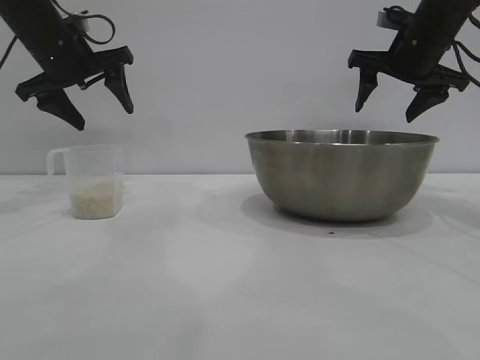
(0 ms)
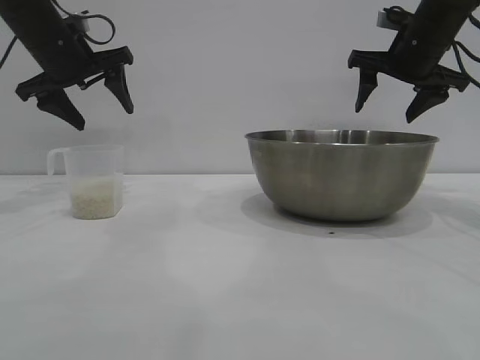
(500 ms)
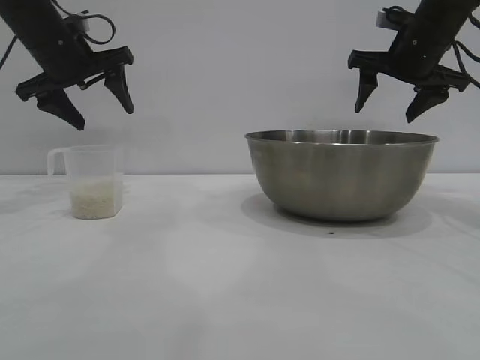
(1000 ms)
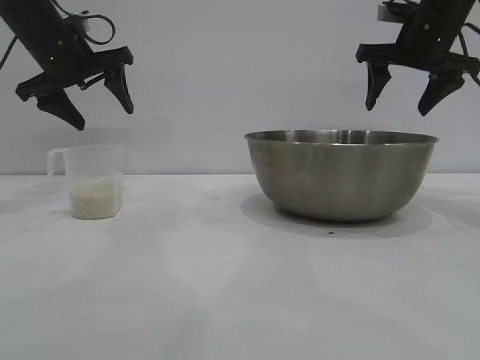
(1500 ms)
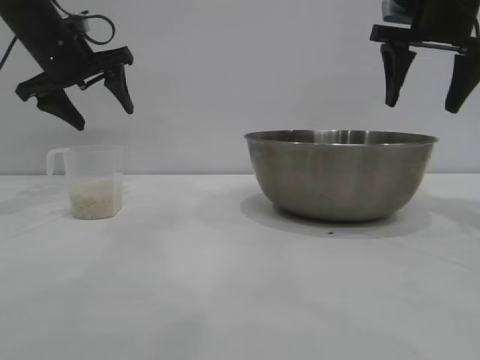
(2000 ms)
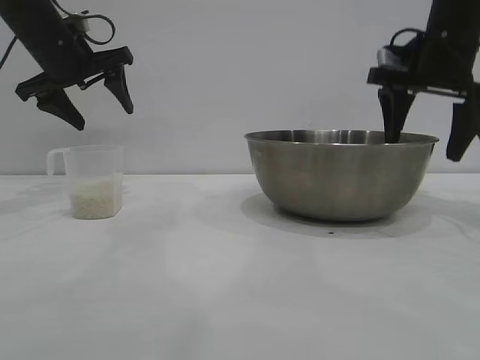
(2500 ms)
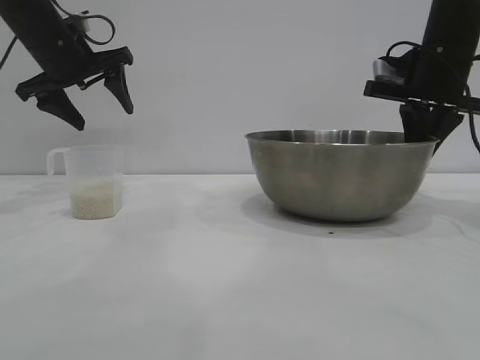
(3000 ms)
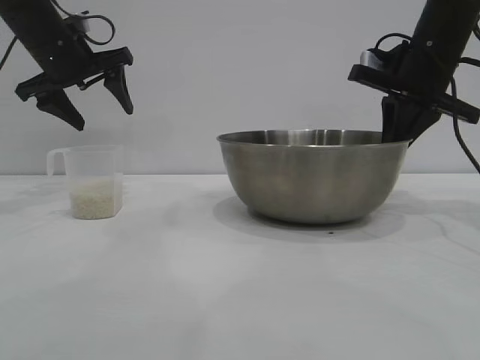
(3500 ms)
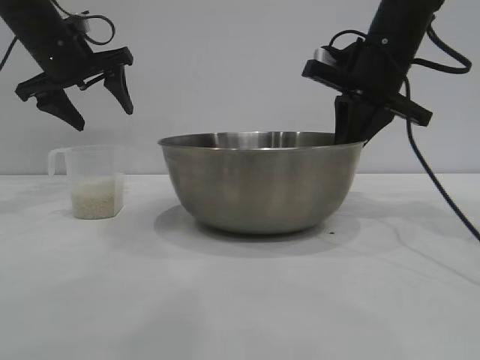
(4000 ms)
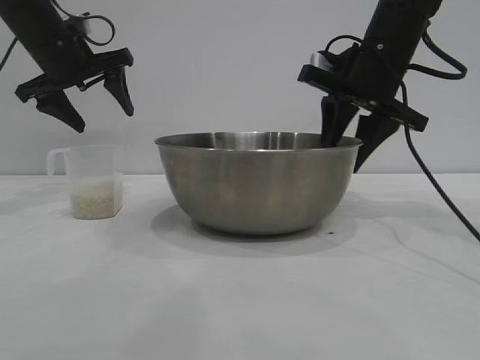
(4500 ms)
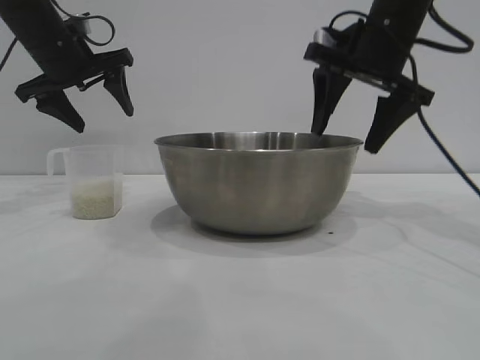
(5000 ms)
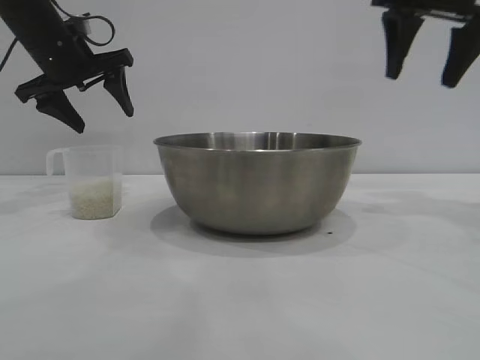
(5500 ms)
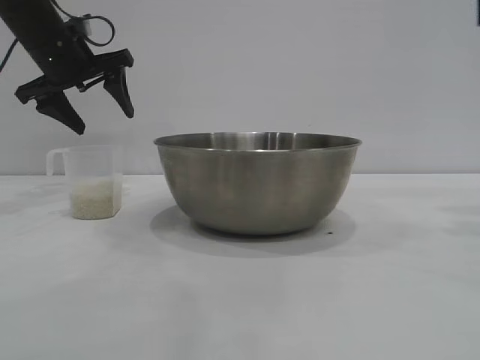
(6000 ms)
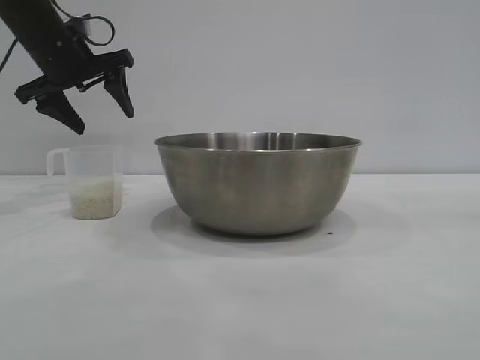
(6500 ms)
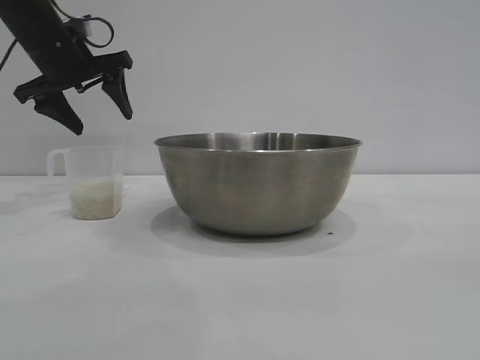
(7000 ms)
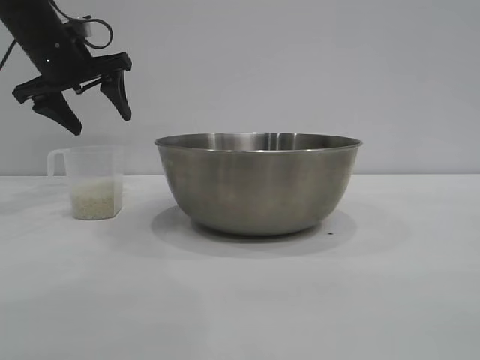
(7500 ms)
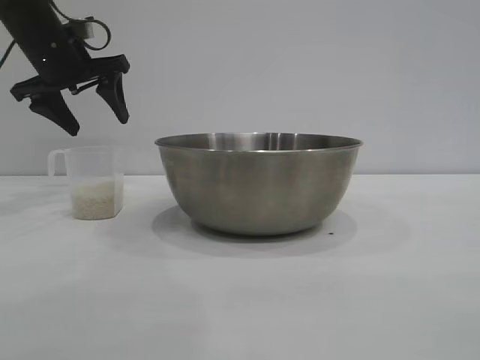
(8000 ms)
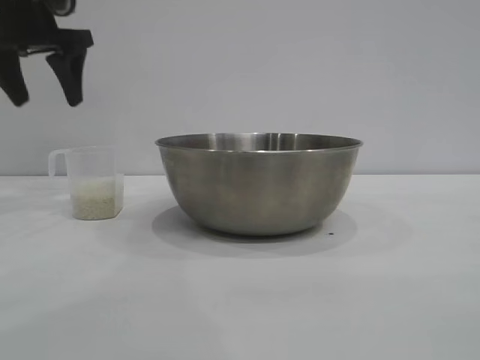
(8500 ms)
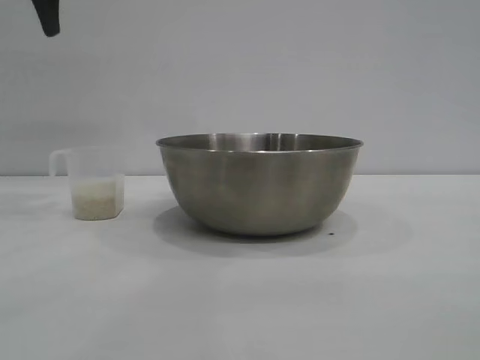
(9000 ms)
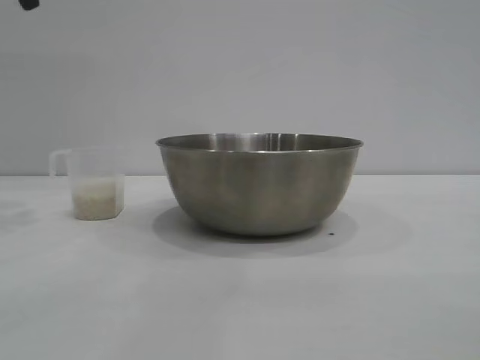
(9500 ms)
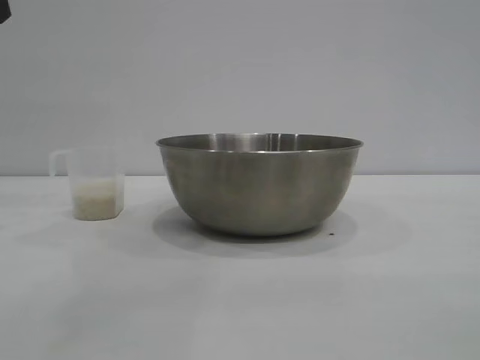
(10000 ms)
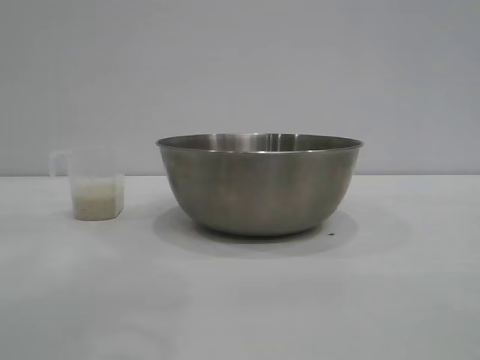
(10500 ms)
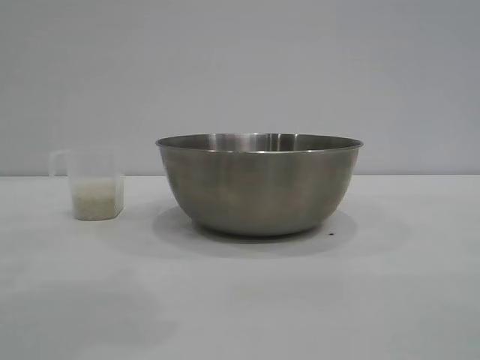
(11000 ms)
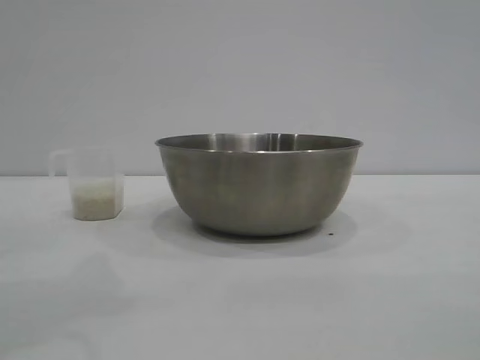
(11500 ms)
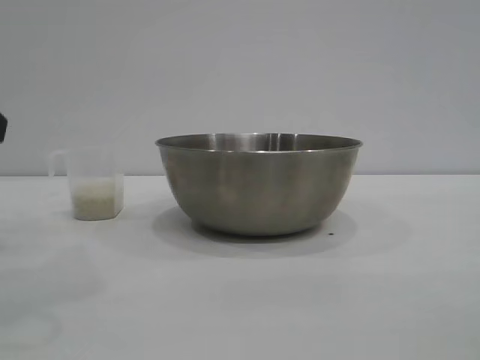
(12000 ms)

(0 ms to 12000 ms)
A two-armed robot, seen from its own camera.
Task of the whole recording: the right gripper grasp the rice container and place it in the center of the table, the left gripper grasp the rice scoop and pour the rice into the rice container.
Step, 0 ms - 4500 ms: Move the bowl to the center of view with the right gripper.

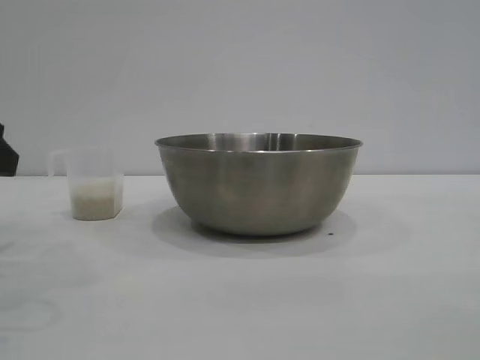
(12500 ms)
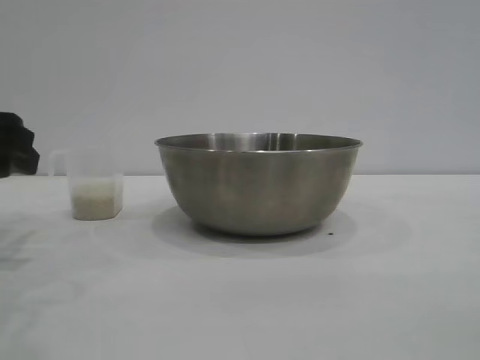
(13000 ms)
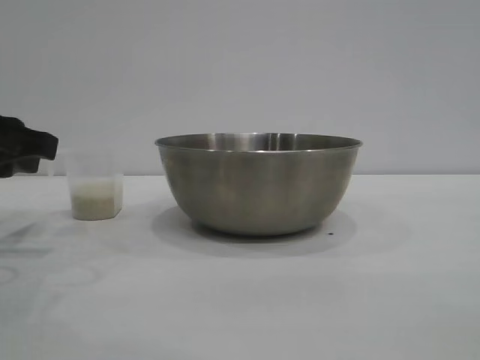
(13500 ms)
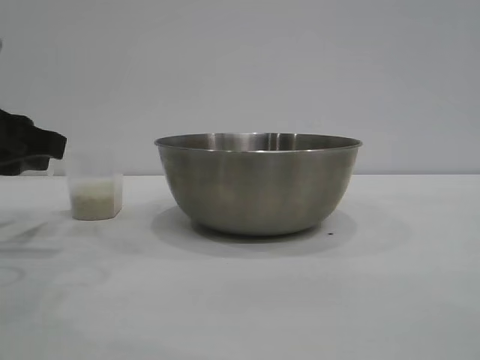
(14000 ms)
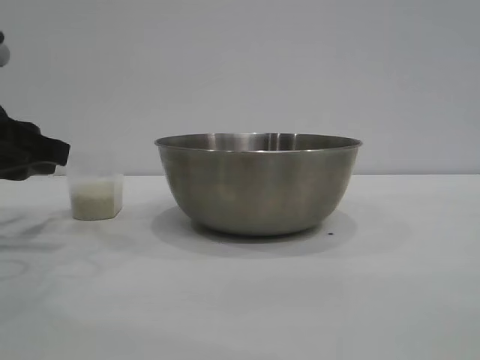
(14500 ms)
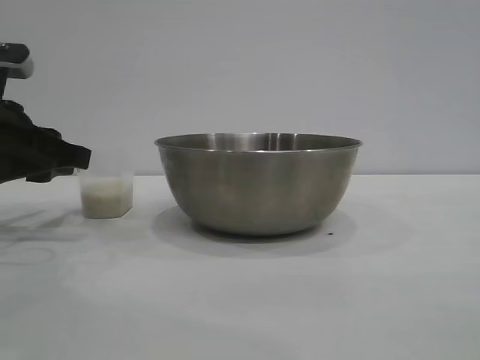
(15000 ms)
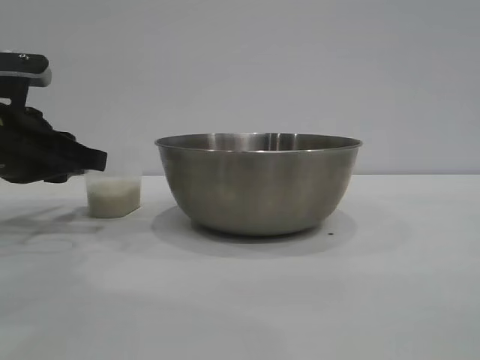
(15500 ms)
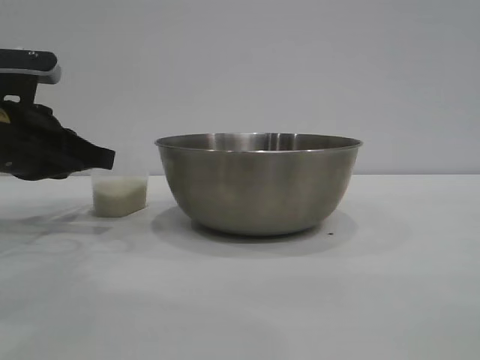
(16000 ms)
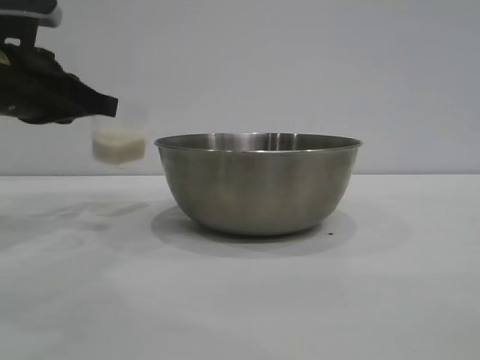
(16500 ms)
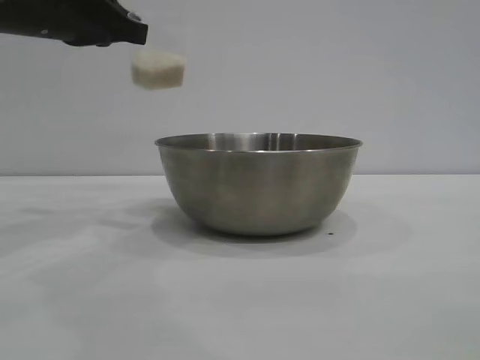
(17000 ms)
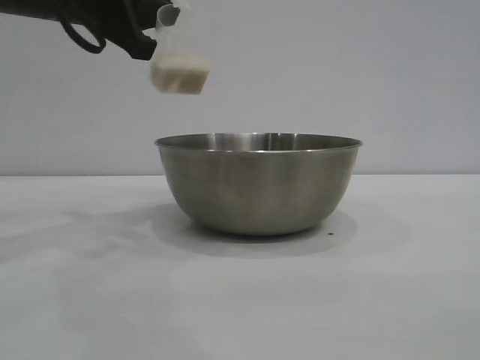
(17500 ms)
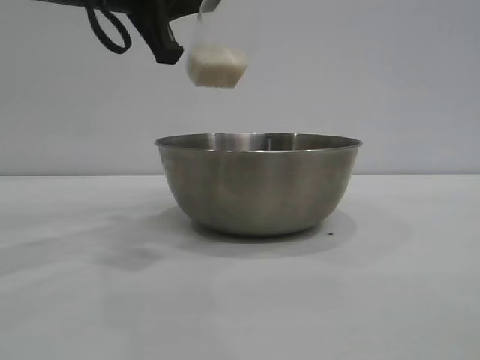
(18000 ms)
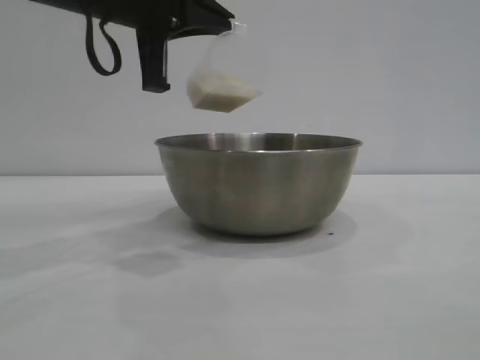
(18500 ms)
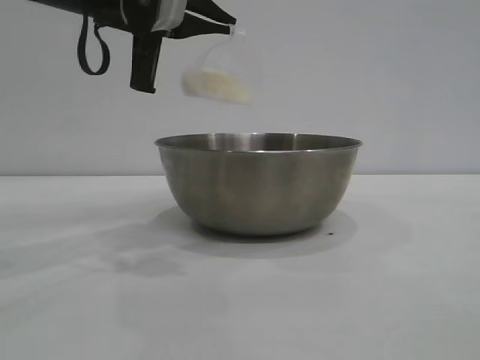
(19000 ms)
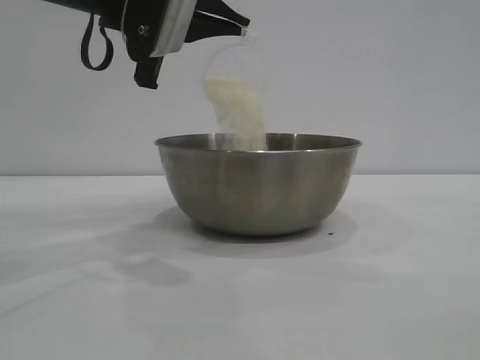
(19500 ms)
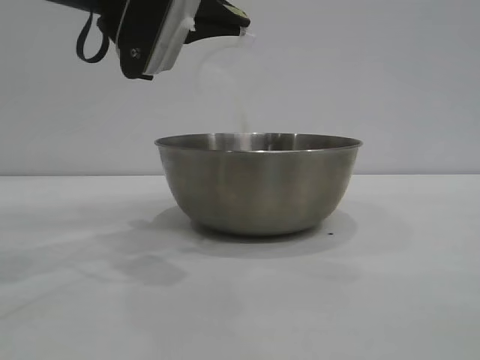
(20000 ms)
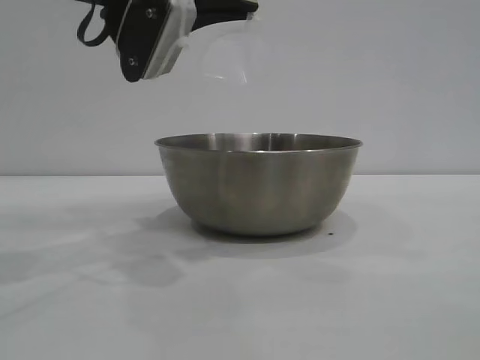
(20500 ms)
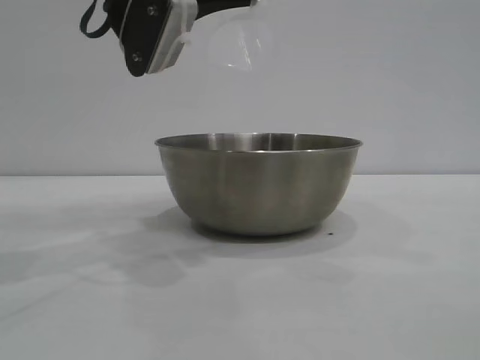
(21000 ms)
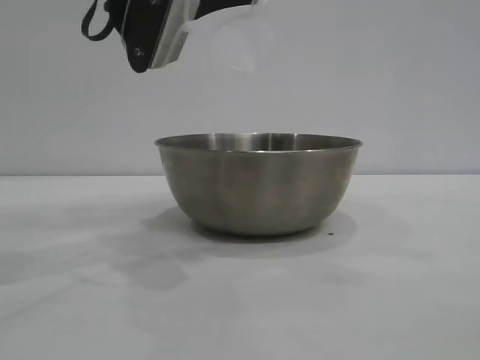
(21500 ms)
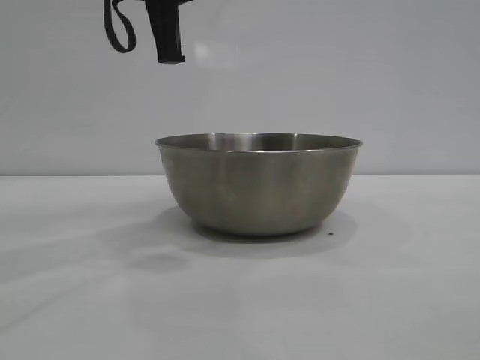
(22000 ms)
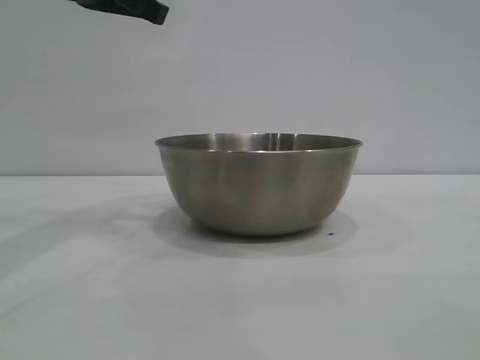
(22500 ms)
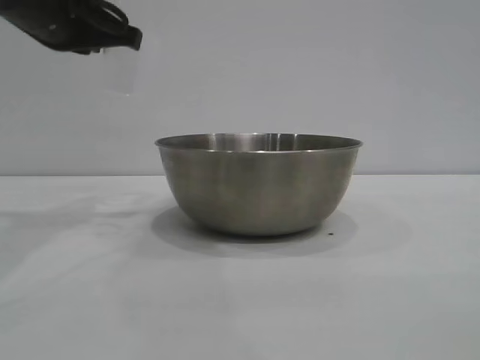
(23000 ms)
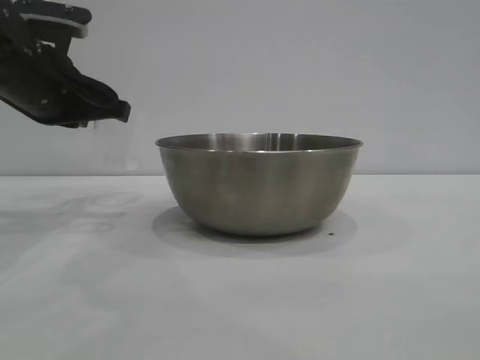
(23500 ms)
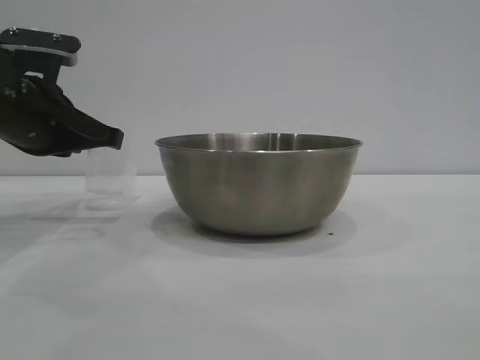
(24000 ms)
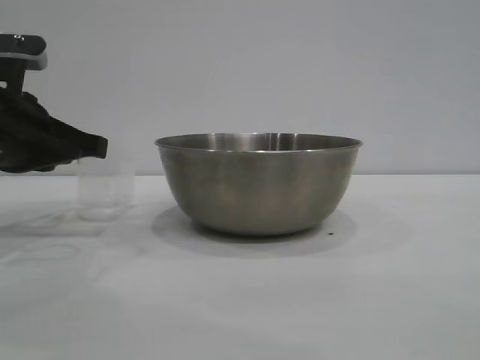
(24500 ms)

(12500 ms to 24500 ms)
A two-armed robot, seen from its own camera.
Task of the whole recording: the right gripper grasp the rice container and place it in the center of the table, the left gripper grasp the rice scoop and pour the rice into the rice container.
Step, 12500 ms - 16500 ms: Pick up the cup with rice in it with the left gripper.
Step, 17000 ms - 22500 ms: Pour the rice from the cup into the bowl with the left gripper.

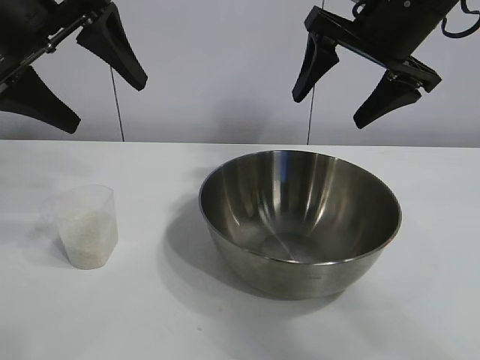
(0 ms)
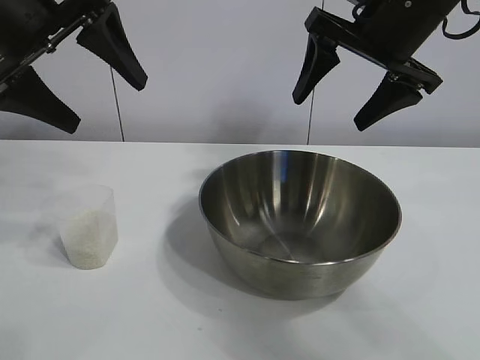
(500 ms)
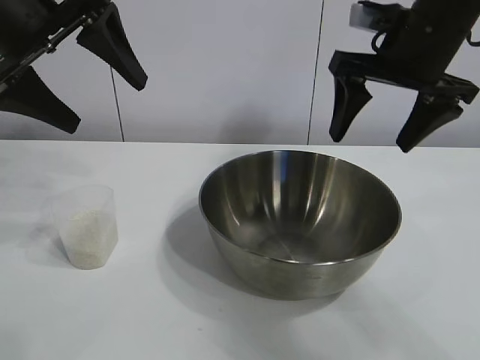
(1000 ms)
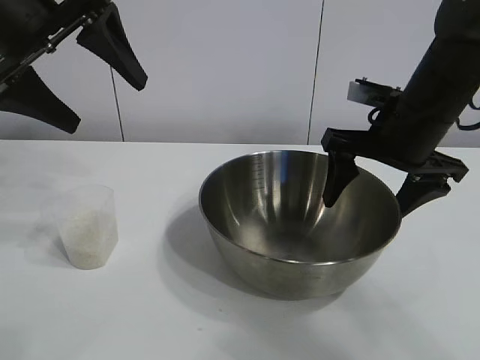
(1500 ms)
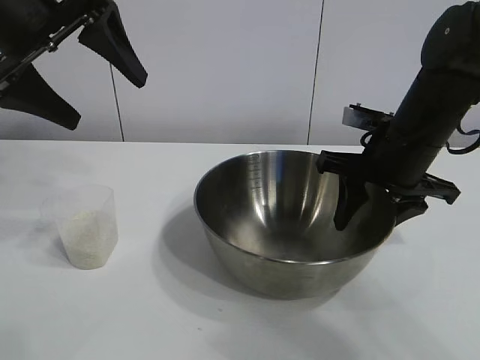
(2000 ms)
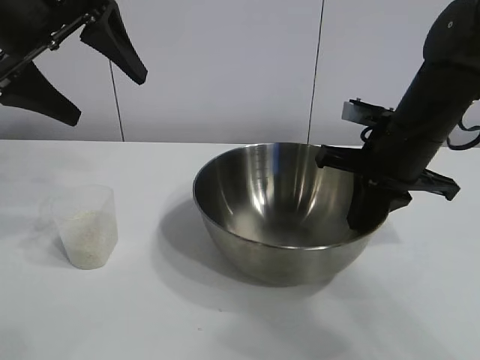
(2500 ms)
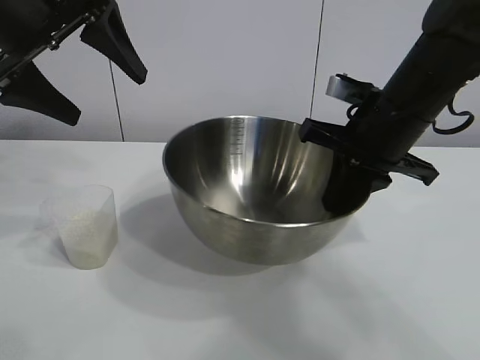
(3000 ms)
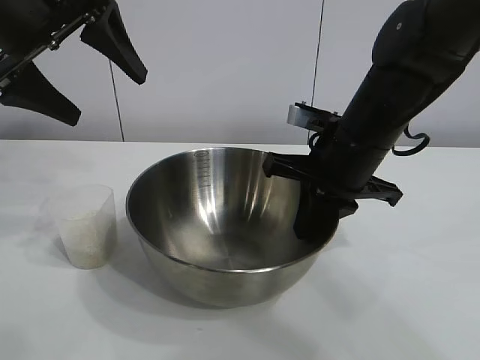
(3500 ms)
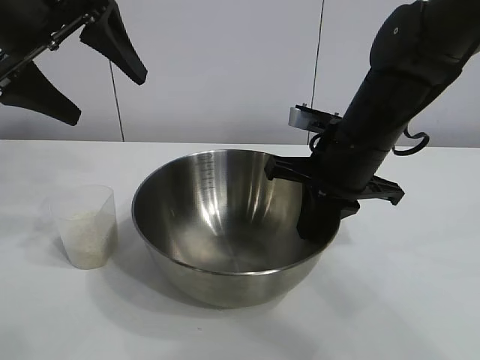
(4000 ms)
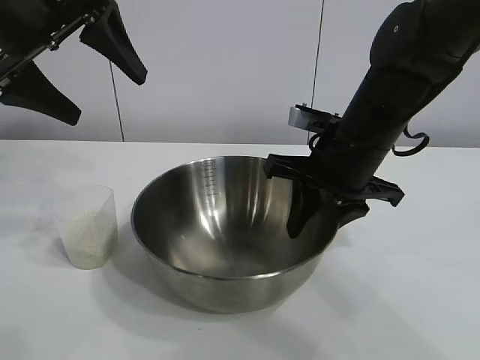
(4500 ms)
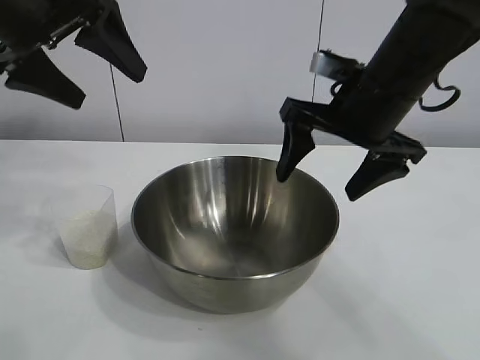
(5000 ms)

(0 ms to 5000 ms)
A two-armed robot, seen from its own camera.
Task of the whole recording: the right gripper grasp the rice container and place it in the center of the table, the left gripper grasp the rice scoop and pour the rice into the rice container.
Step, 1000 ms - 4500 ms: Move the bowl in the center of view with right gripper.
